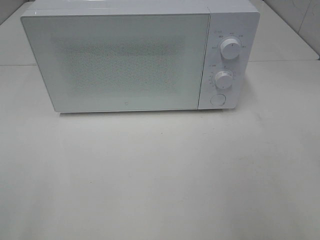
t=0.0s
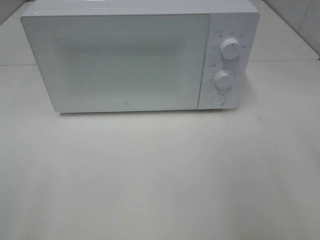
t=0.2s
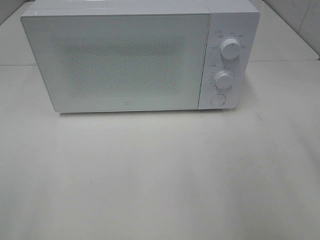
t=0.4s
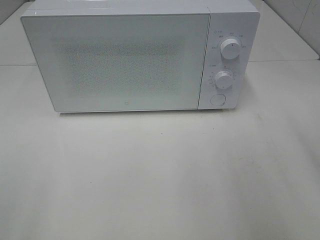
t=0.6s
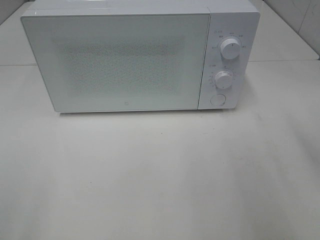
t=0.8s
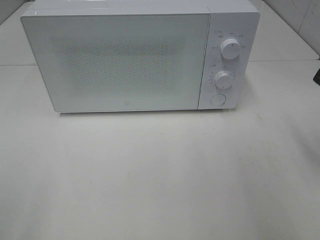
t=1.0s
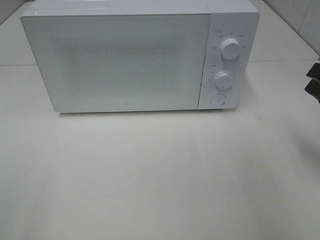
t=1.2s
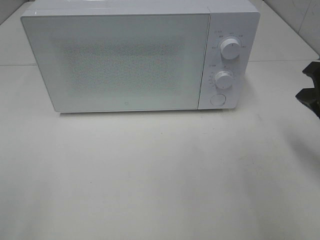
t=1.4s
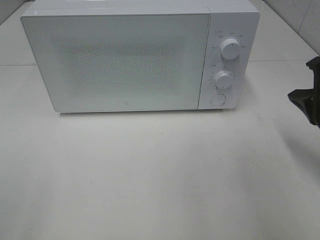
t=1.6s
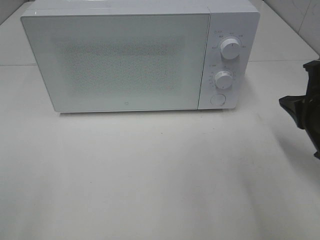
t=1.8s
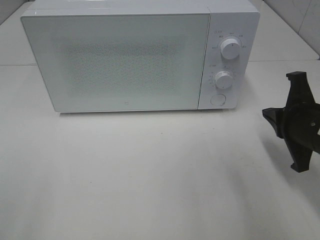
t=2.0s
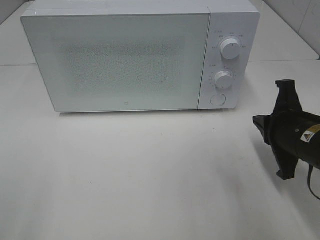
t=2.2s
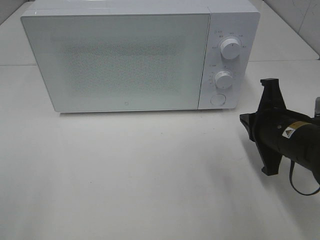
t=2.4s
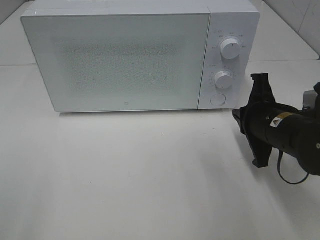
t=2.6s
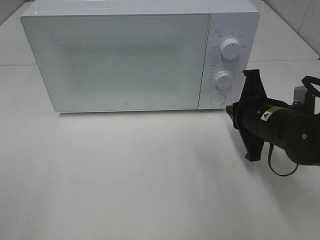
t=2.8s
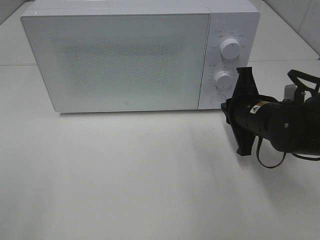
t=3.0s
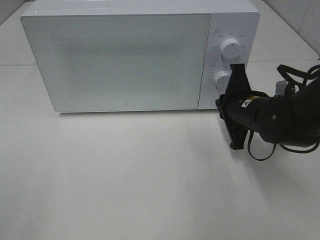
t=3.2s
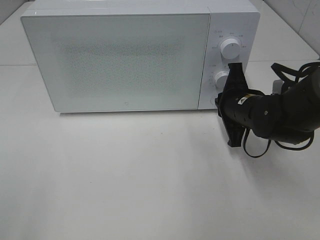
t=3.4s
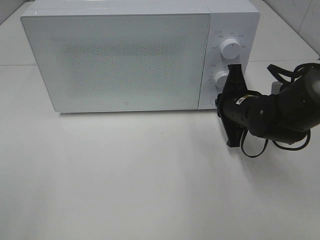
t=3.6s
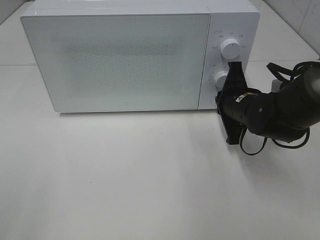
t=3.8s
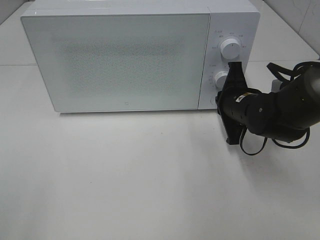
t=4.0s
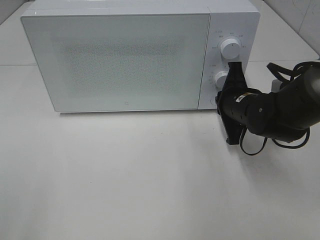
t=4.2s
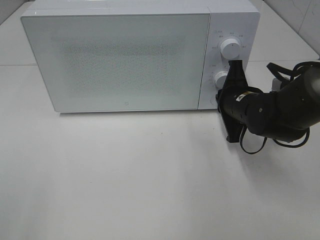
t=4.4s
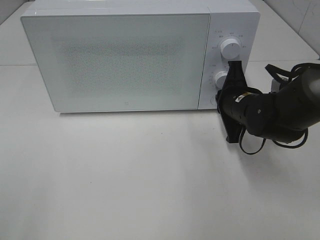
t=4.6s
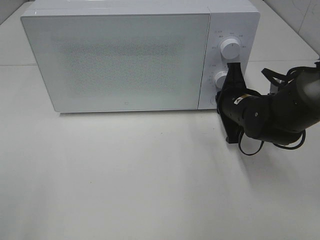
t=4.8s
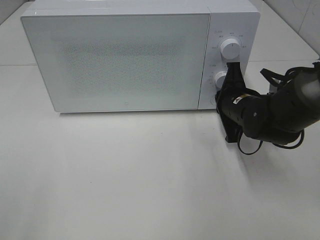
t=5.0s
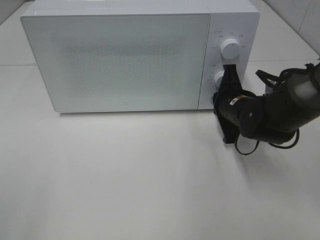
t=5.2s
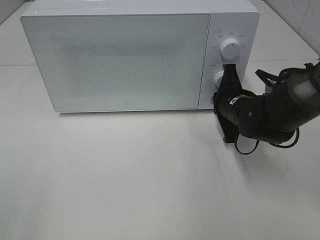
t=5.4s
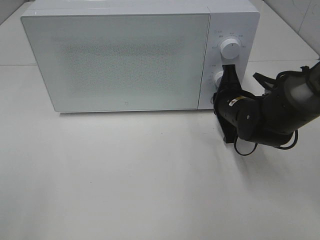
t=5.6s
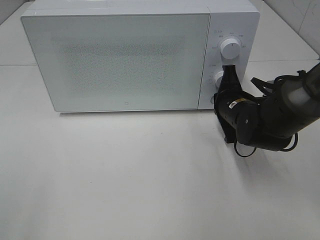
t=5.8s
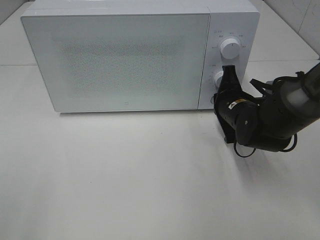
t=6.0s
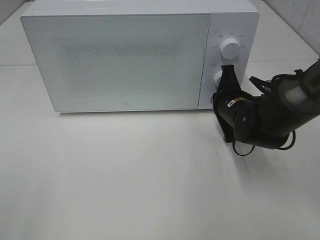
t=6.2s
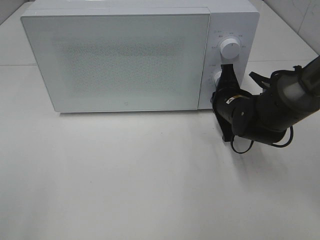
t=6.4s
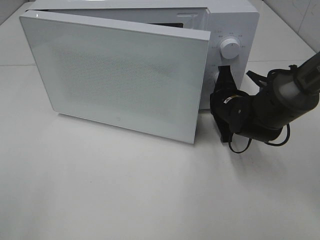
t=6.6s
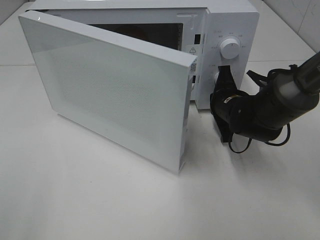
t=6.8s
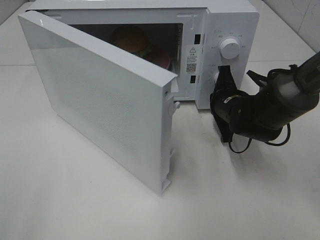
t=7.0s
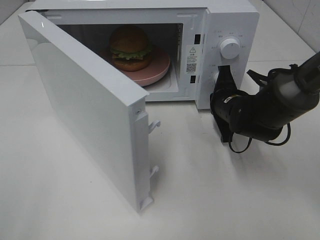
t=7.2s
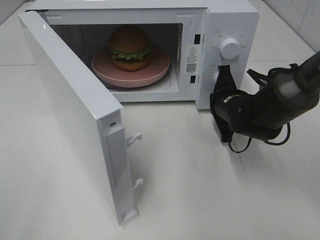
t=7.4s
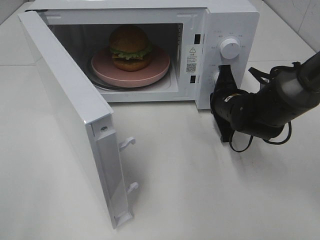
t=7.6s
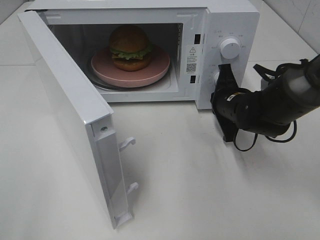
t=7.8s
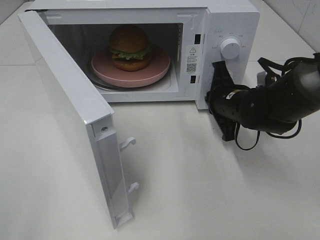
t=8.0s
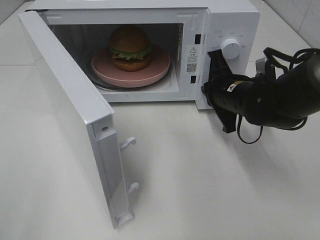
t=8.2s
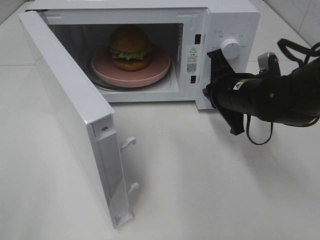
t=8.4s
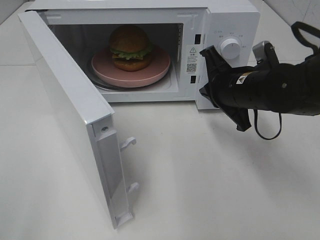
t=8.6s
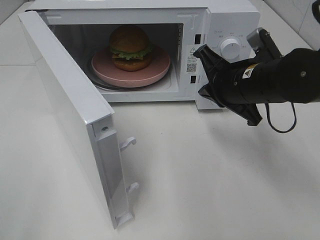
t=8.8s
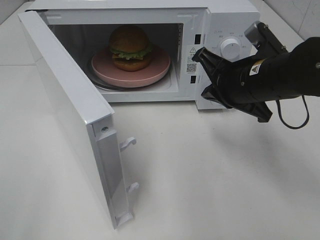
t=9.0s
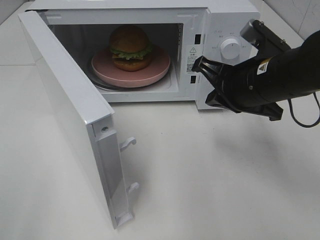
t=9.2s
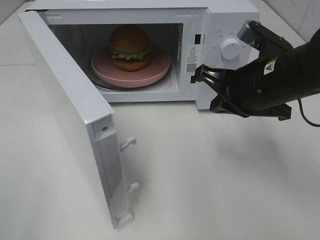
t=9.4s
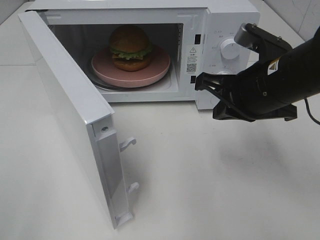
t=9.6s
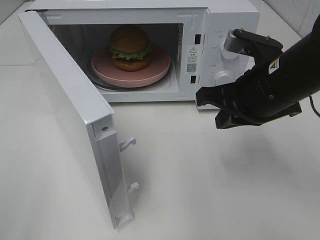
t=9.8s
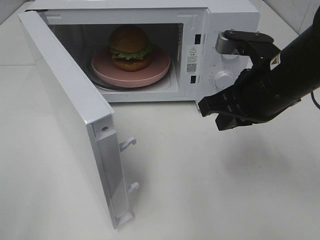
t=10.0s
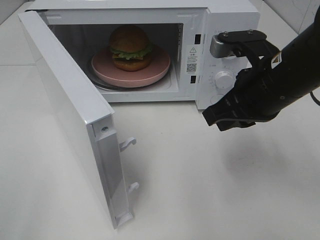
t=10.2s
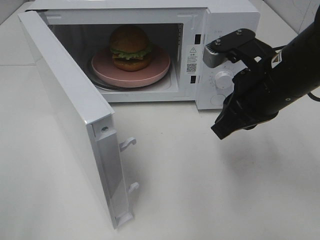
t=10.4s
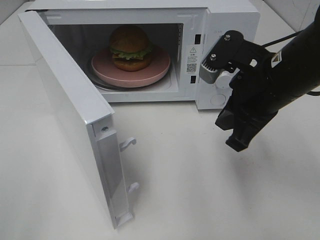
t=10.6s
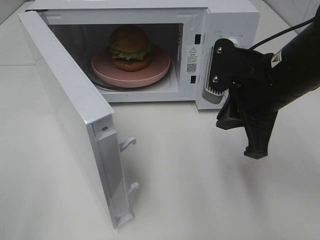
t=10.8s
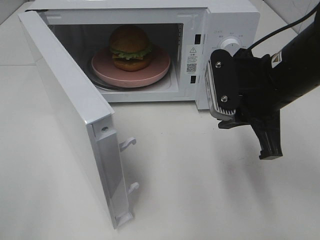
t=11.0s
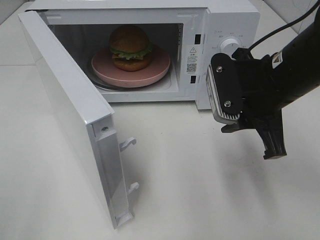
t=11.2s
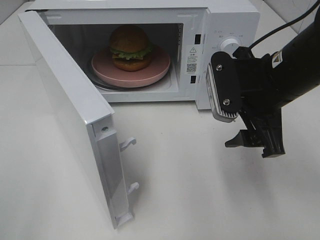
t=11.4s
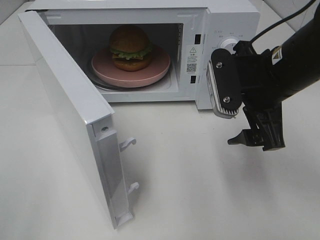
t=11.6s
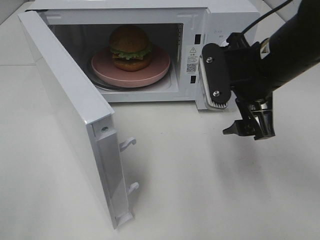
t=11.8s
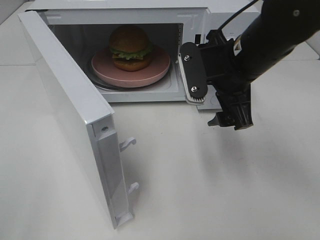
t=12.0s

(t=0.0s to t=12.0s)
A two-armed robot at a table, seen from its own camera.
Task of the whole recording: Heat the burger.
Step, t=0.0s - t=8.0s: Right hand: press the switch.
t=0.0s - t=1.6s: The right gripper moves downward and forward, some 20 cm, and closes up.
t=1.6s - t=3.0s: The right gripper goes about 15 cm to the left, forward and downward.
t=3.0s - t=6.0s: The grippers stay close to where they were, moving slightly.
t=7.6s - t=9.0s: The right gripper heads upward and backward, covering about 15 cm.
t=10.4s - t=12.0s: The right gripper moves about 5 cm, and opens.

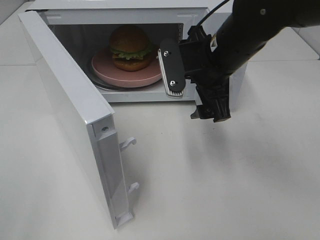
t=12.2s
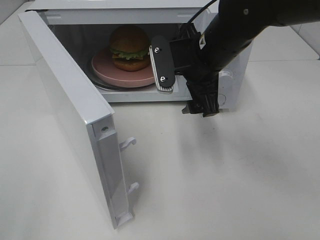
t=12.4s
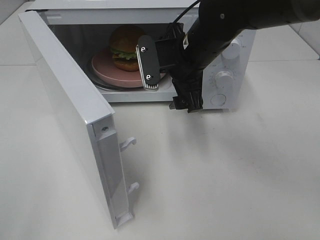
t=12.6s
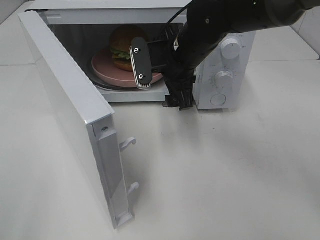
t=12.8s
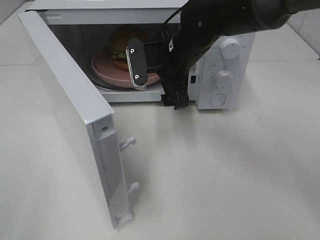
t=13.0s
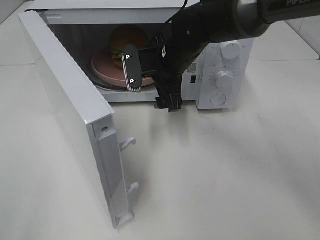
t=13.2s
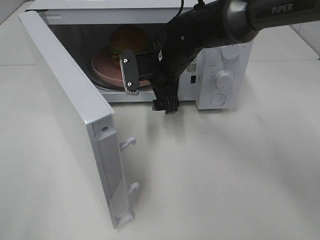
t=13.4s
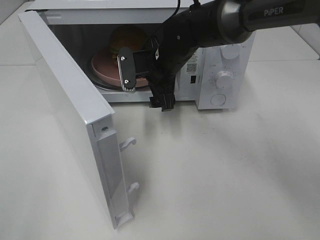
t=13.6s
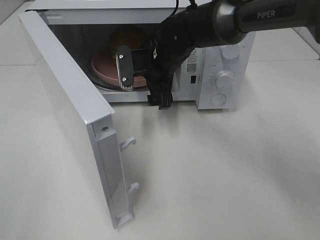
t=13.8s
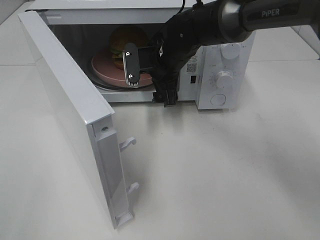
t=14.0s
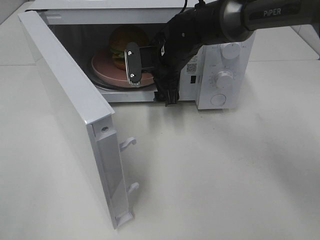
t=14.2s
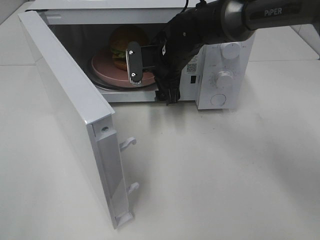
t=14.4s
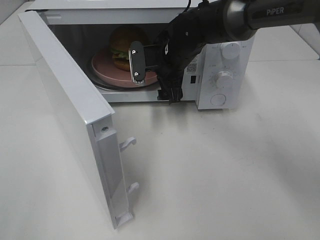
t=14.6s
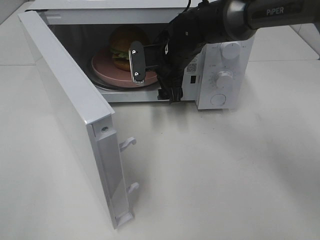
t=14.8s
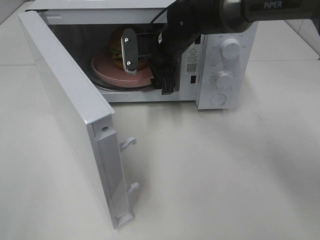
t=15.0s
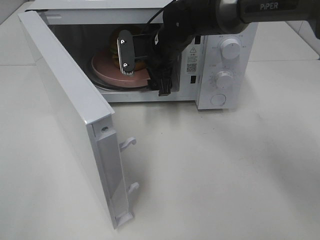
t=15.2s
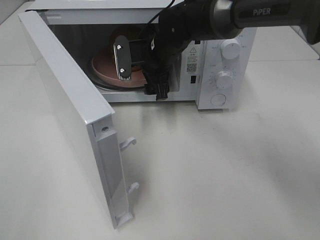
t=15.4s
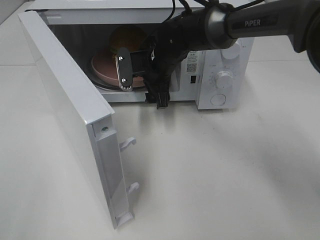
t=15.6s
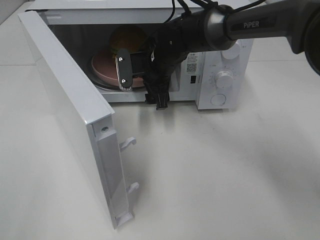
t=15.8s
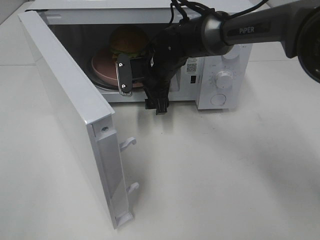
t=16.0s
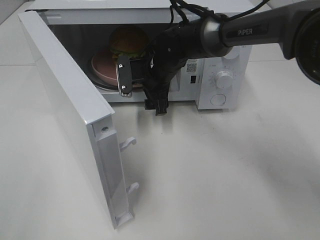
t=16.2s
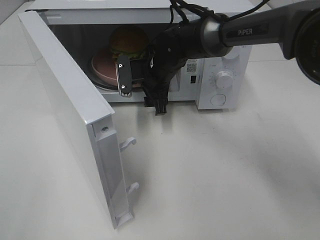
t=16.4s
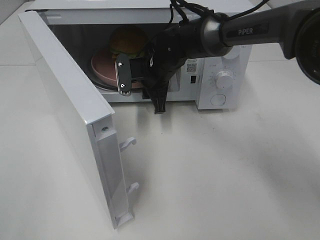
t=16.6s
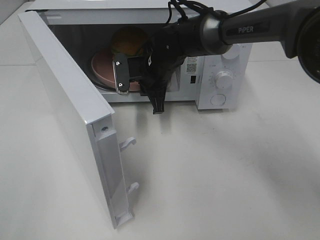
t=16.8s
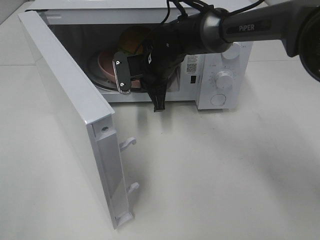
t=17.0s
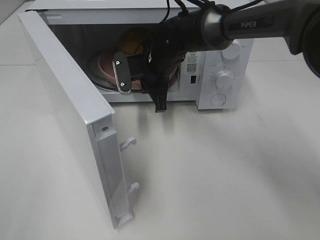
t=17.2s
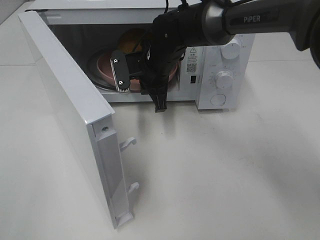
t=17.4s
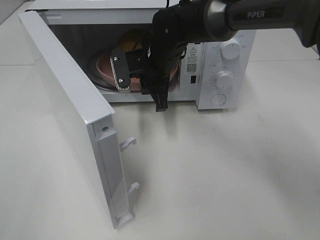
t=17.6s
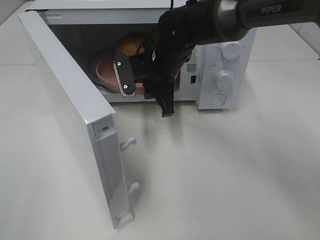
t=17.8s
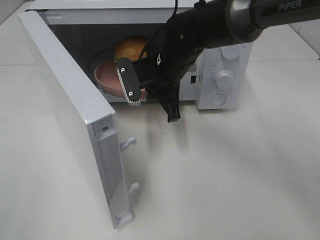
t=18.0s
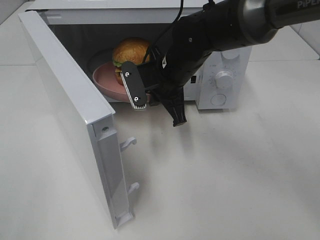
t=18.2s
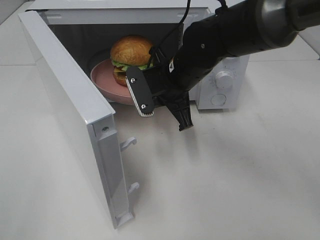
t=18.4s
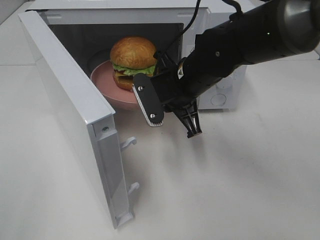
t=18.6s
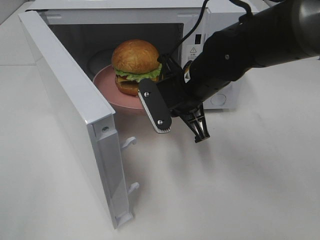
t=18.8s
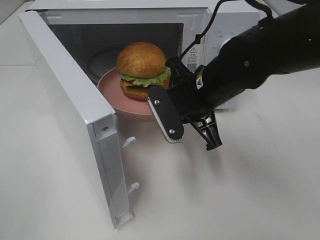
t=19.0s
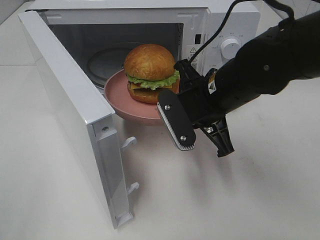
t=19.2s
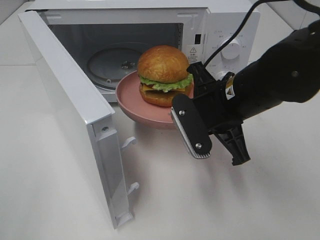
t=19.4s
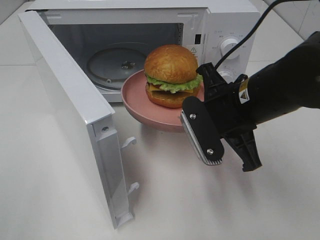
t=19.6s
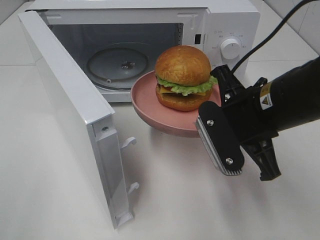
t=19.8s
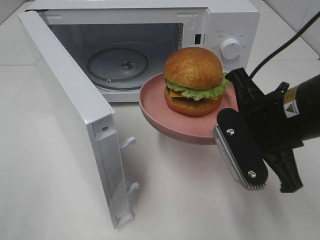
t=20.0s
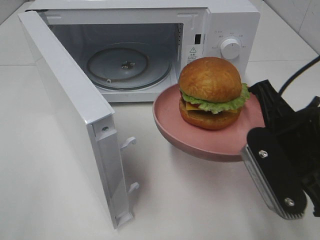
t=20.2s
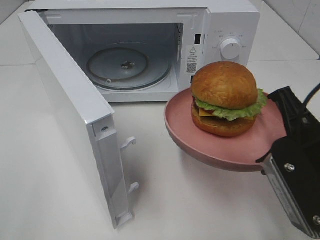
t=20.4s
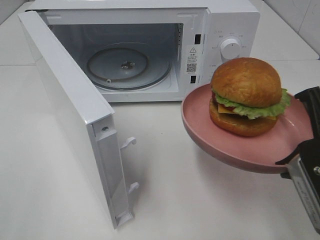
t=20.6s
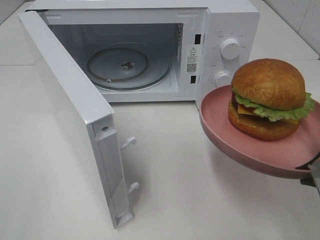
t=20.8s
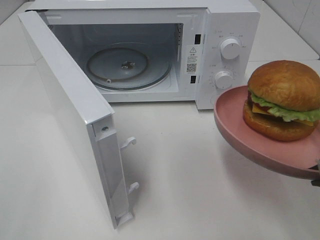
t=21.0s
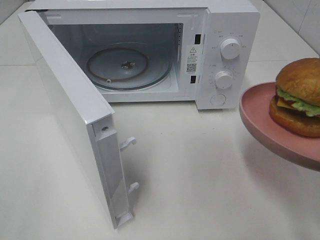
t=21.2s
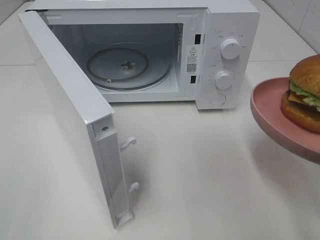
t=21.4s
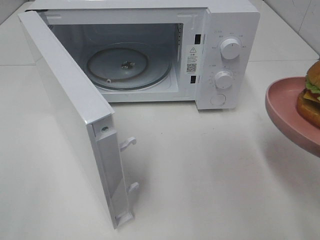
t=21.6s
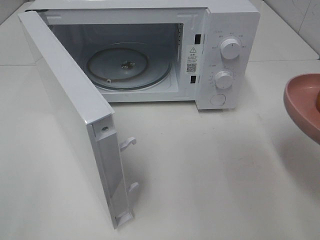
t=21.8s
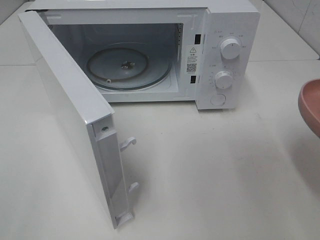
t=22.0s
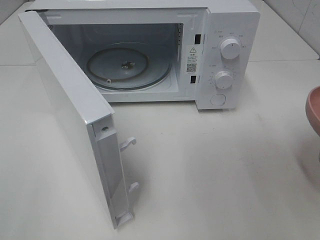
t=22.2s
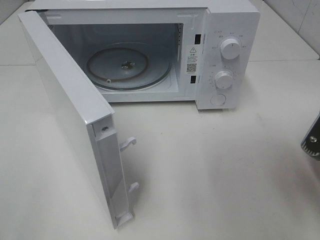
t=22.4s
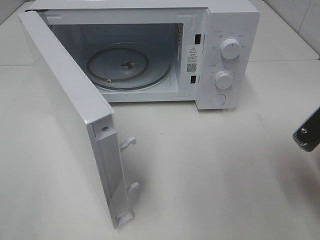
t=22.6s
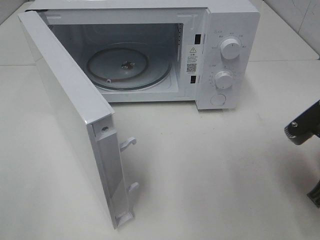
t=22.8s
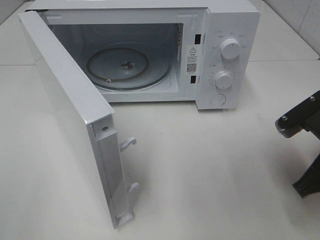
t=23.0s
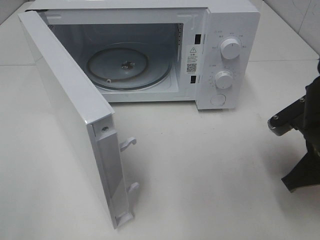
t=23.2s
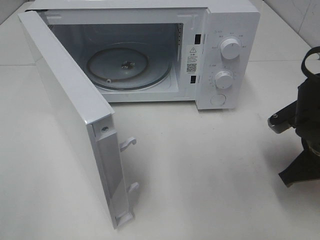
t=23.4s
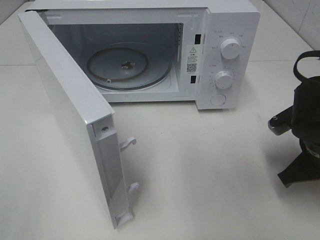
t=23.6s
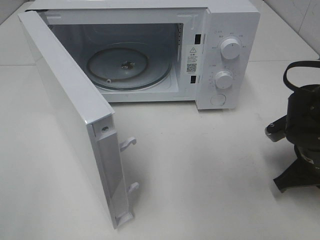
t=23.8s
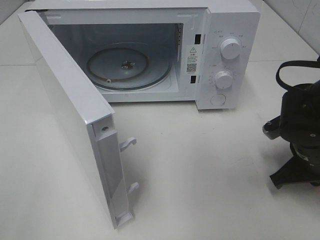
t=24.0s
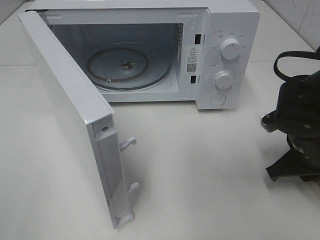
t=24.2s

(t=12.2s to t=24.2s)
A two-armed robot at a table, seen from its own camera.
Task of the whole recording: Heat the burger.
Step, t=12.2s - t=16.8s: Right hand: grab the plate with the hamburger.
t=12.2s - t=13.8s: The right gripper goes approximately 15 cm forward, to the left and downward.
t=13.8s - t=15.2s: The grippers stay close to where they were, moving slightly.
t=15.2s - t=16.6s: The right gripper moves about 5 cm, and closes up.
t=16.6s - t=18.2s: The right gripper shifts roughly 5 cm backward, and closes.
t=18.2s - t=19.8s: The right gripper heads backward and to the right, covering some 15 cm.
t=19.8s - t=21.2s: The right gripper heads backward and to the right, covering about 15 cm.
t=21.2s - t=22.6s: The right gripper ends up roughly 5 cm from where it was.
t=22.6s - t=24.2s: The right gripper moves forward and downward, roughly 10 cm.
